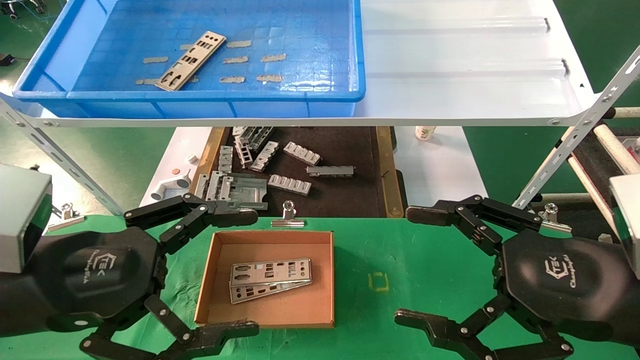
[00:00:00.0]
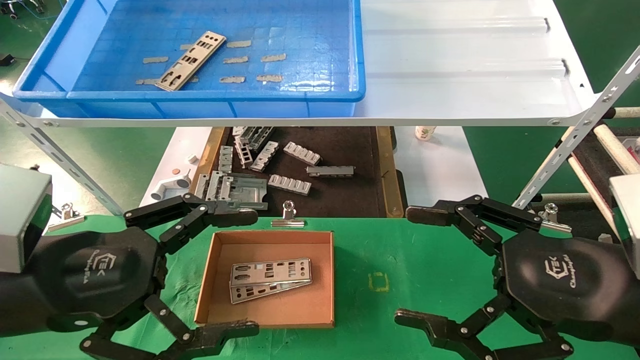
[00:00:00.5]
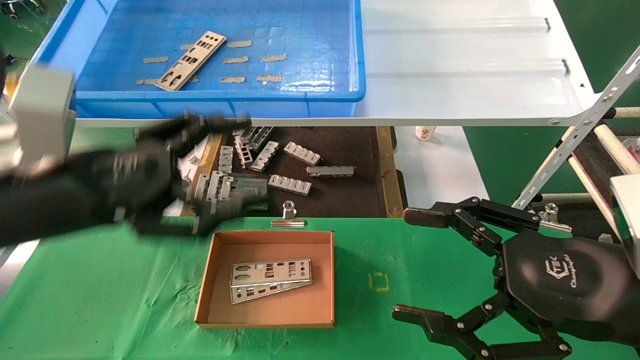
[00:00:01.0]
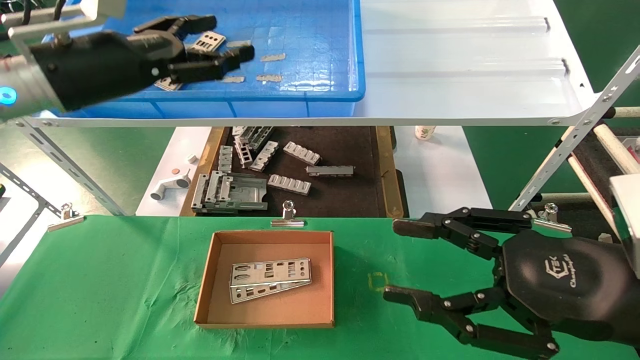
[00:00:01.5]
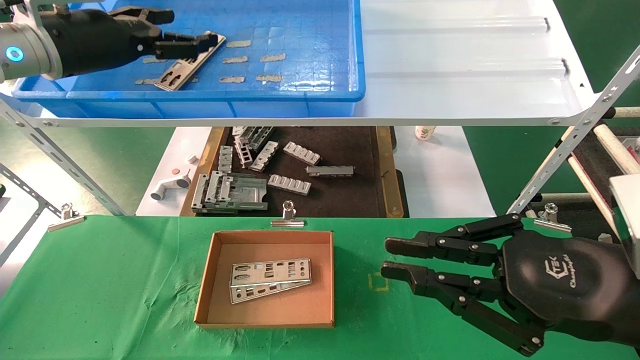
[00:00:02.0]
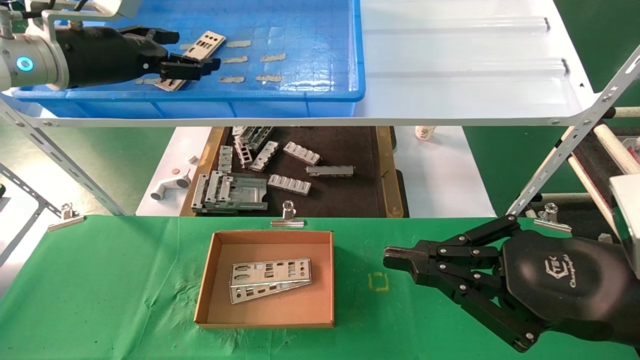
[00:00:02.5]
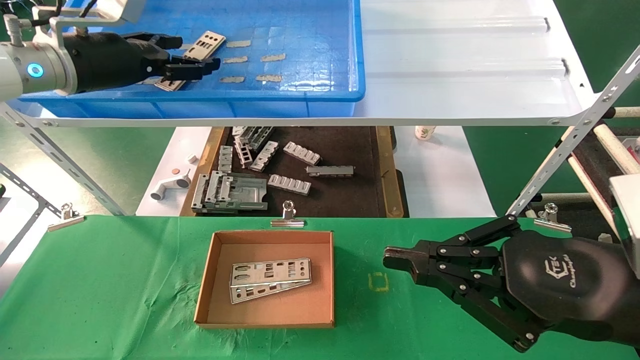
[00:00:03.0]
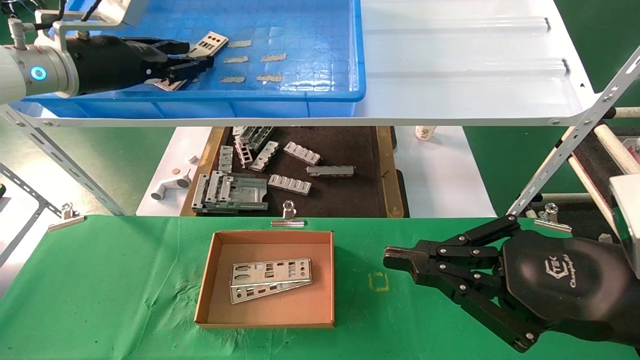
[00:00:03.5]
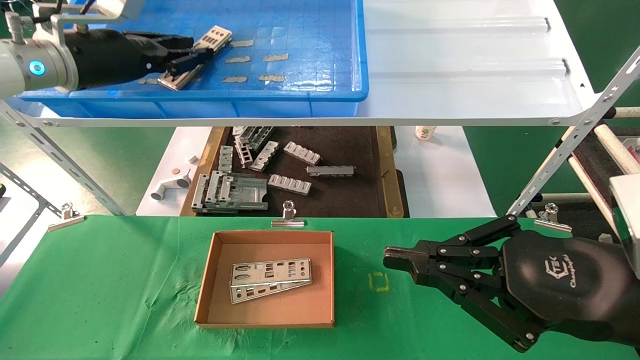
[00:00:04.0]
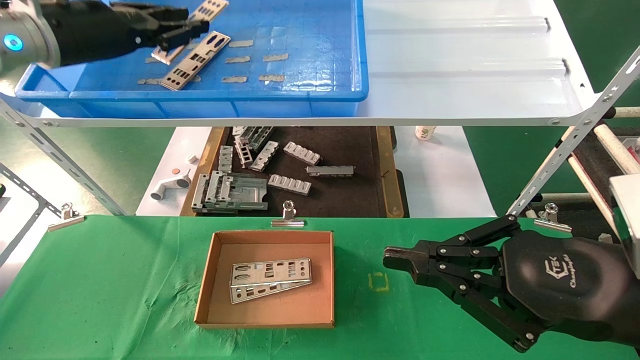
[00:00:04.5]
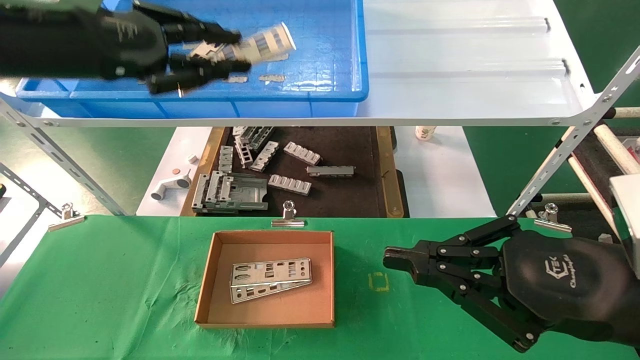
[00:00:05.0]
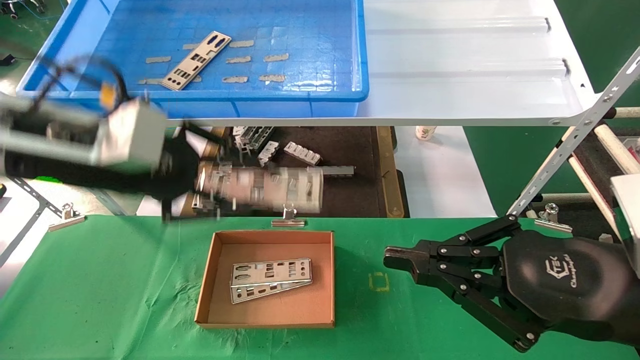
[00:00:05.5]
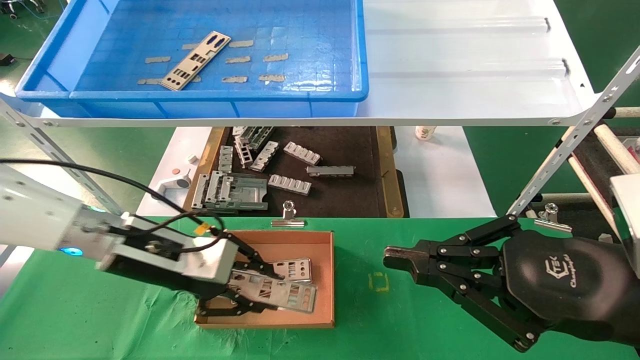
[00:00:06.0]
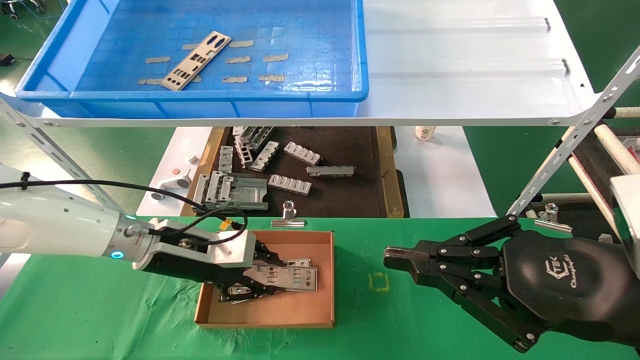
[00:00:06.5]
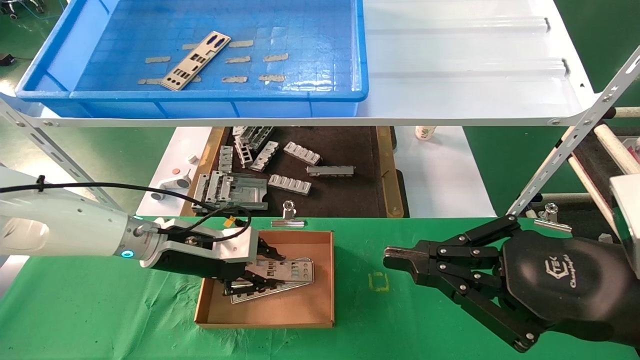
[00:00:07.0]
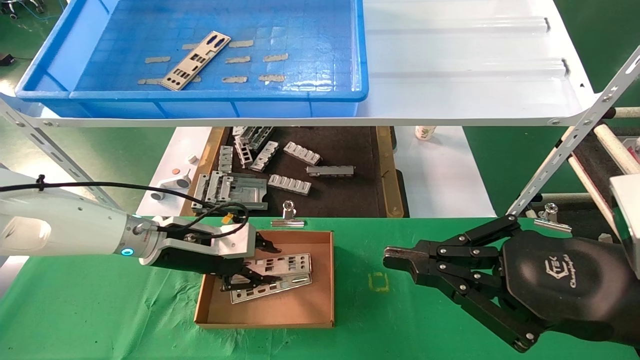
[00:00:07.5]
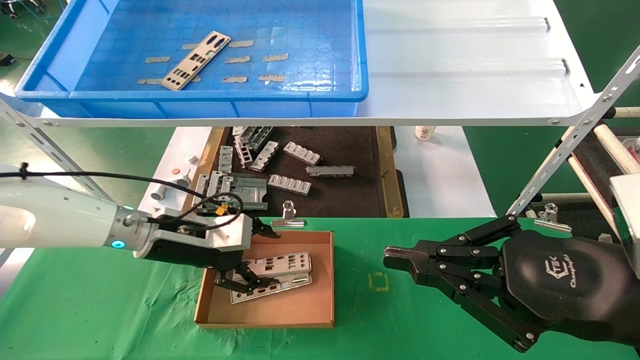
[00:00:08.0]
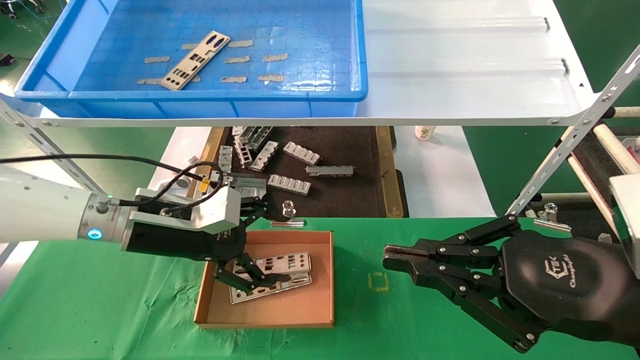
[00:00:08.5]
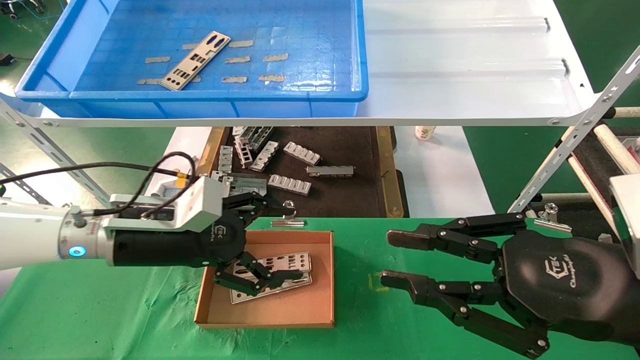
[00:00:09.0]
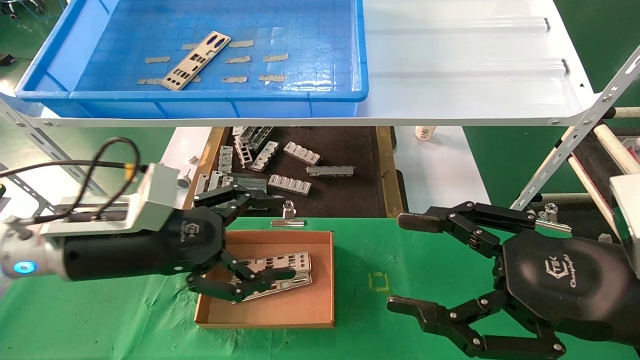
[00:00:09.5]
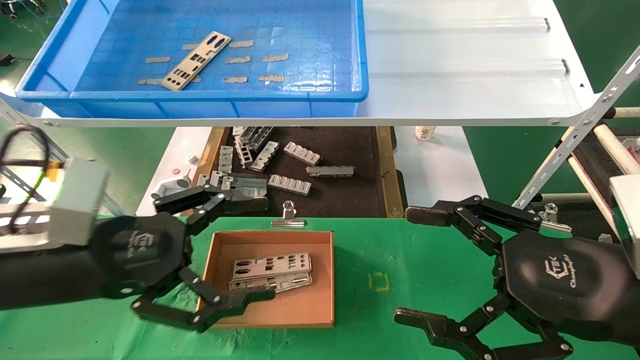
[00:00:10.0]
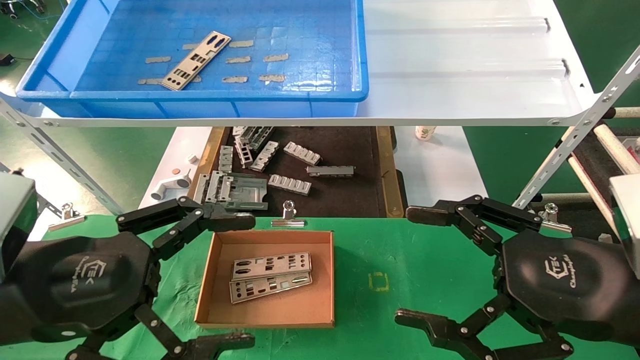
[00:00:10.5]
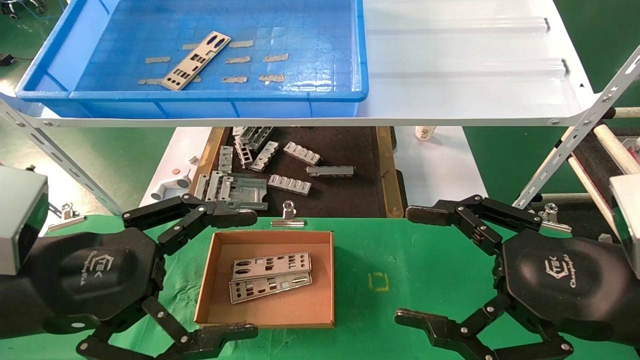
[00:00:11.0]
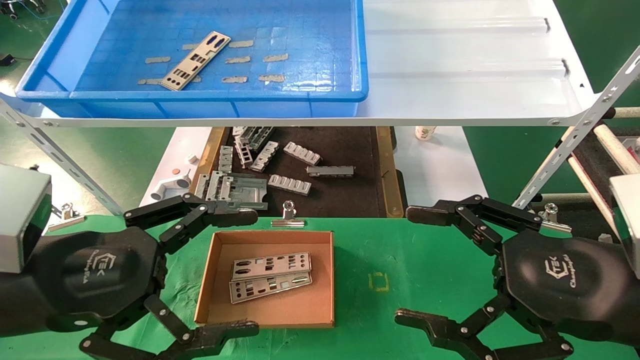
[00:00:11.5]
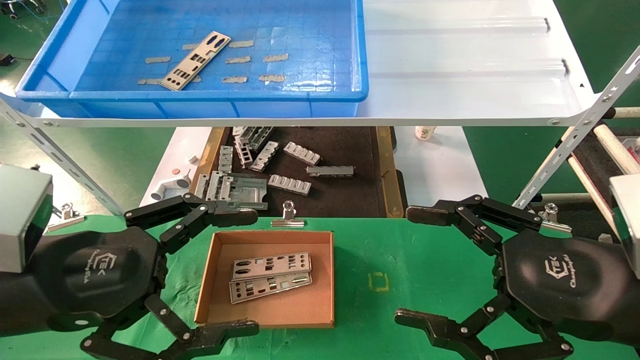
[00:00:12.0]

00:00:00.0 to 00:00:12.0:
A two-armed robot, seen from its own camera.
Task of the whole recording: pick up the parts on the tray and put them in the cardboard box.
Step, 00:00:01.0 to 00:00:04.0: Pick up the IO bracket from the container box.
Step, 00:00:04.5 to 00:00:07.5: Place the IO bracket into the ingredient slot.
00:00:00.0 to 00:00:02.0: The right gripper closes; the left gripper shifts about 25 cm forward and upward.
00:00:02.0 to 00:00:04.0: The left gripper closes.
00:00:04.0 to 00:00:06.0: The left gripper heads downward and to the right, covering roughly 20 cm.
00:00:06.0 to 00:00:08.0: The left gripper heads forward, covering approximately 5 cm, and opens its fingers.
00:00:08.0 to 00:00:10.0: The left gripper travels backward by approximately 15 cm, and opens up; the right gripper opens up.
00:00:10.0 to 00:00:12.0: The grippers move only a little.

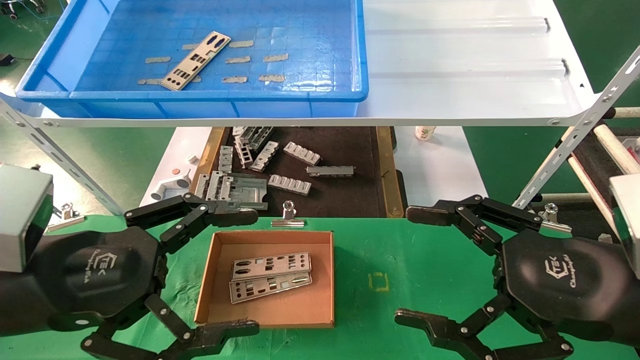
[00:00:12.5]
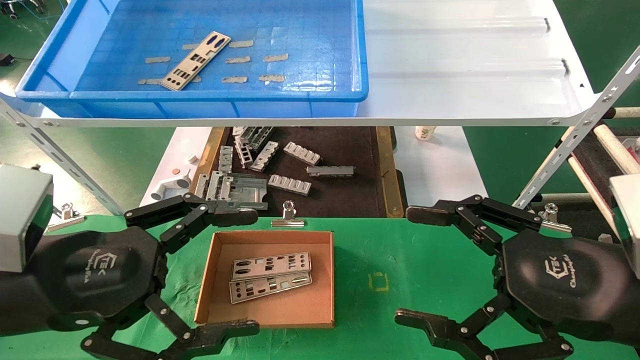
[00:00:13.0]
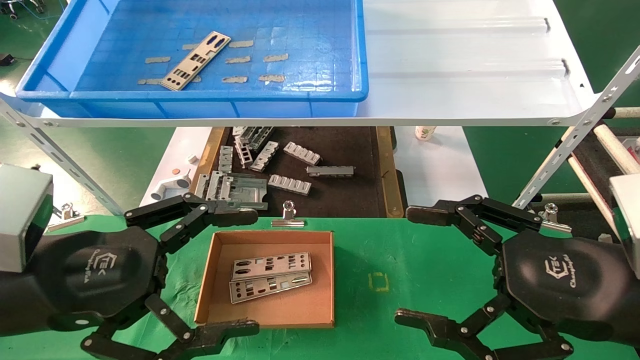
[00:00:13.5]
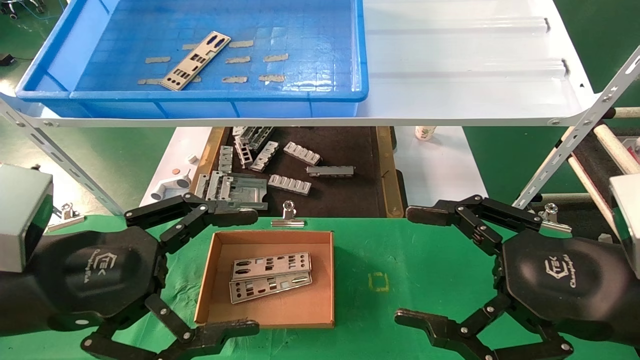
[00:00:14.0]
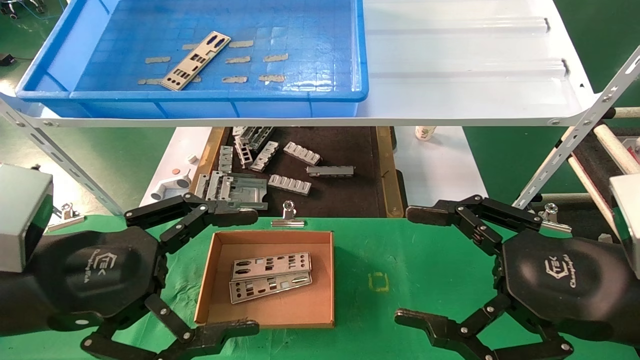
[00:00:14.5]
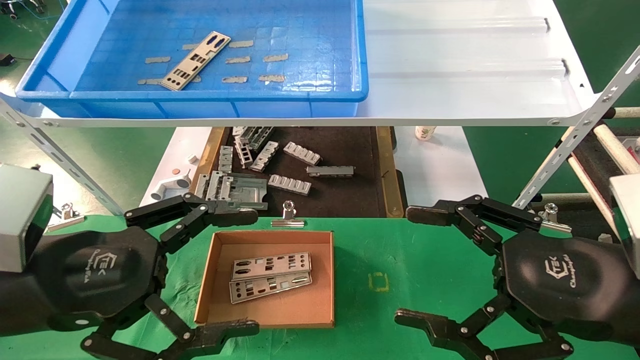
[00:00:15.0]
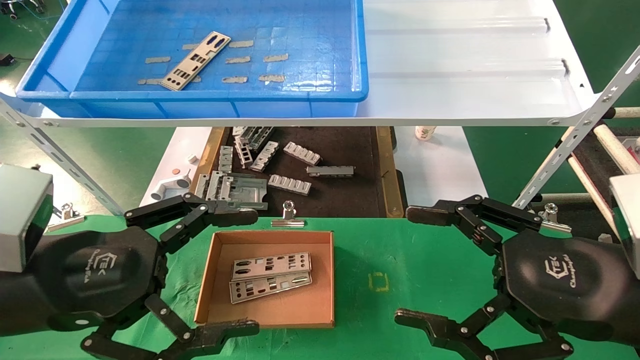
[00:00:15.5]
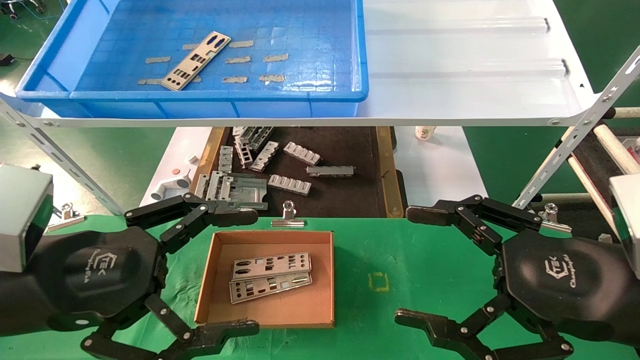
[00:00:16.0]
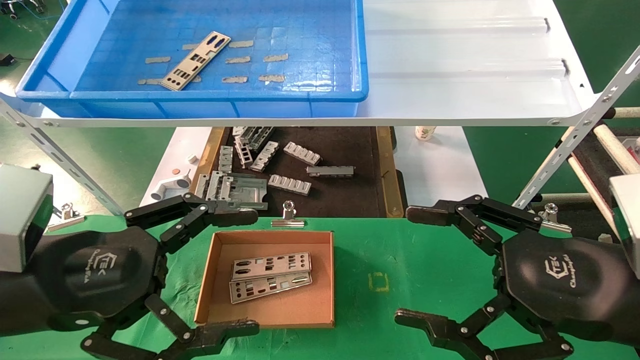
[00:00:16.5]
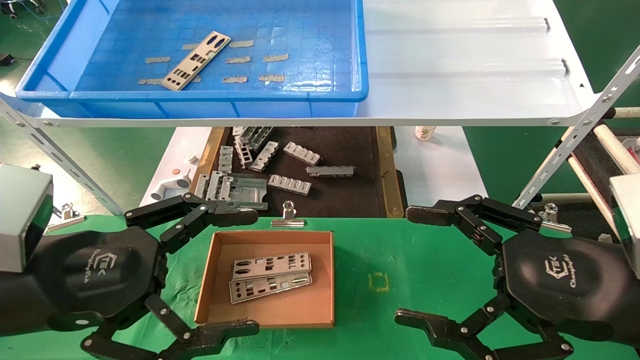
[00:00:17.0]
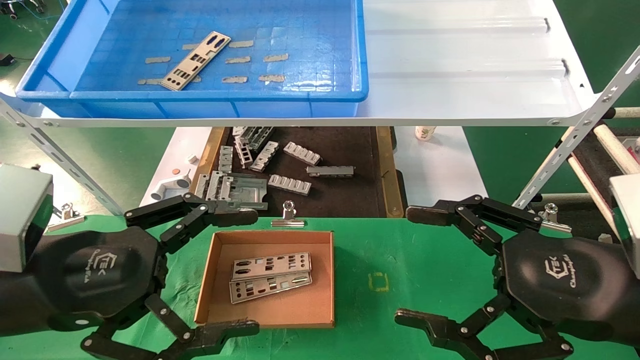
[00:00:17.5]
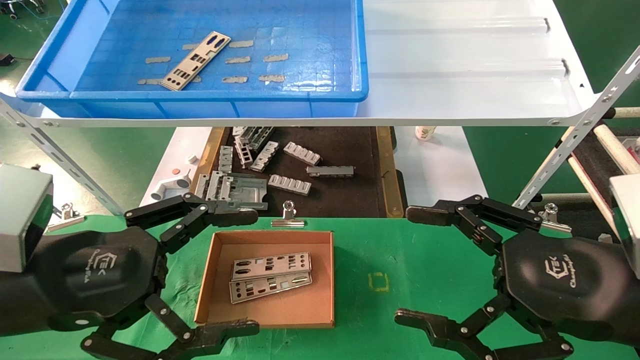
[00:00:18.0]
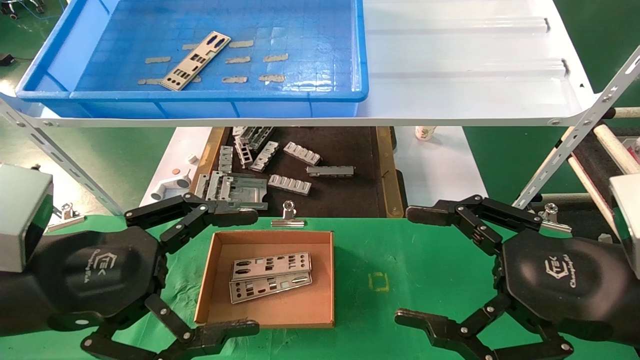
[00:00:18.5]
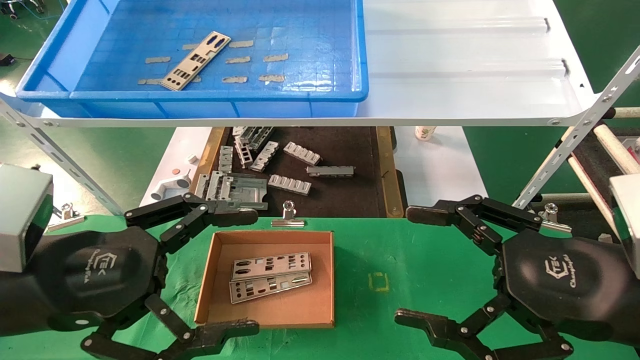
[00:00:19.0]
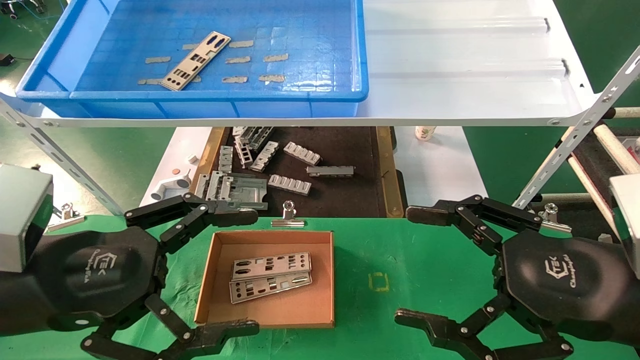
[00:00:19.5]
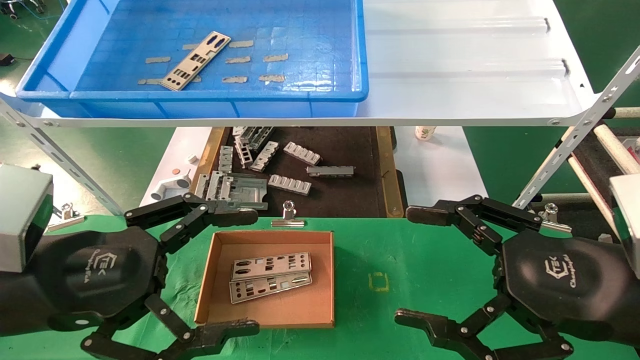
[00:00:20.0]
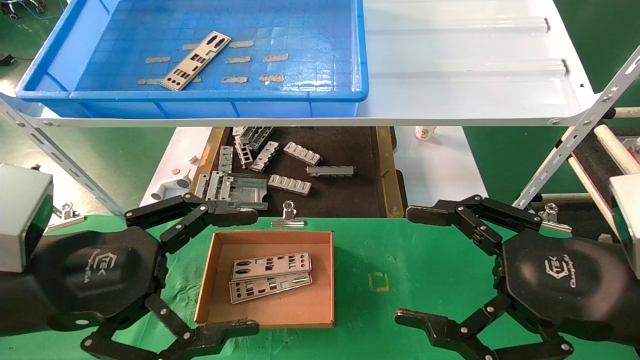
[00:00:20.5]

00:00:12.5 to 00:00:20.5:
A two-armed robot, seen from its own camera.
Task of the whole recording: pick up the parts on the tray and put them in the cardboard box.
00:00:12.5 to 00:00:20.5: Both grippers stay put.
